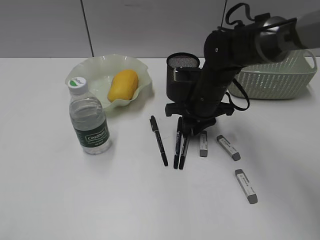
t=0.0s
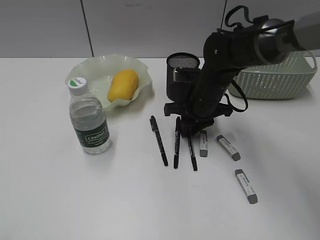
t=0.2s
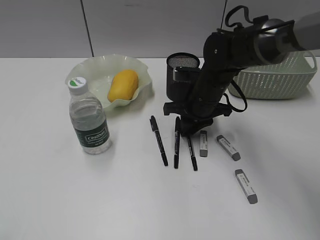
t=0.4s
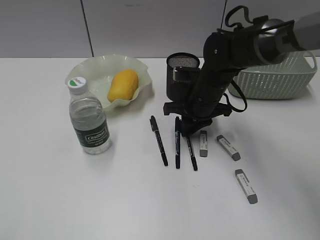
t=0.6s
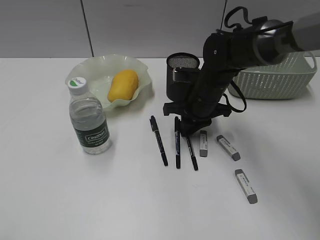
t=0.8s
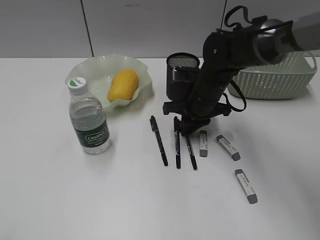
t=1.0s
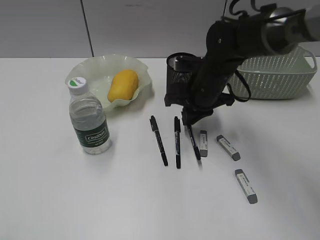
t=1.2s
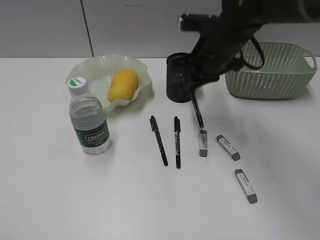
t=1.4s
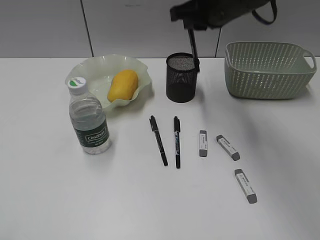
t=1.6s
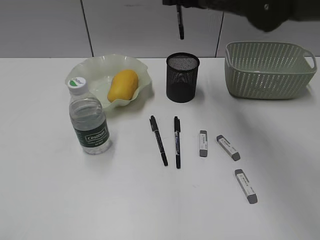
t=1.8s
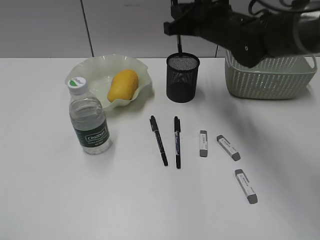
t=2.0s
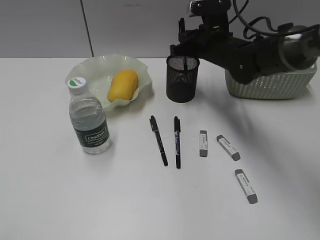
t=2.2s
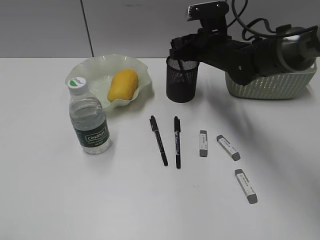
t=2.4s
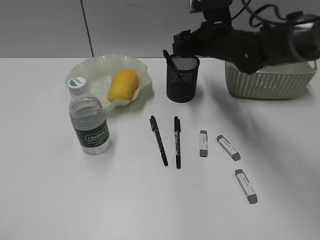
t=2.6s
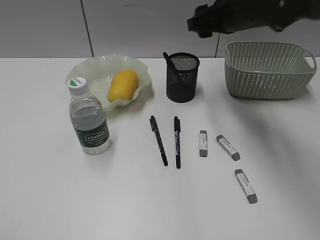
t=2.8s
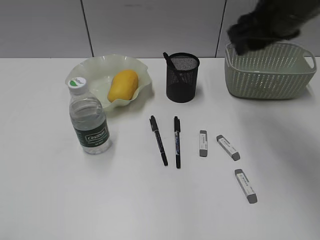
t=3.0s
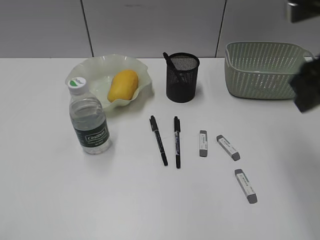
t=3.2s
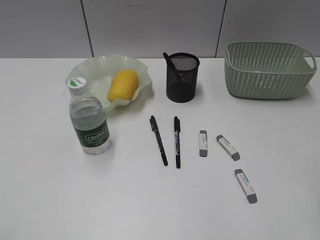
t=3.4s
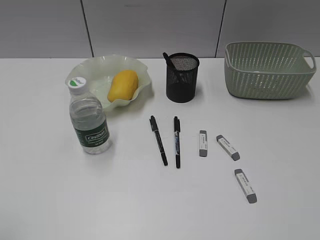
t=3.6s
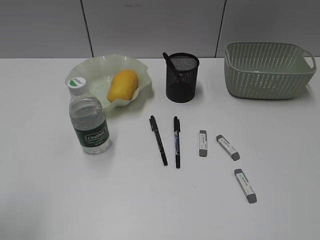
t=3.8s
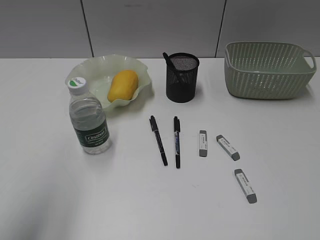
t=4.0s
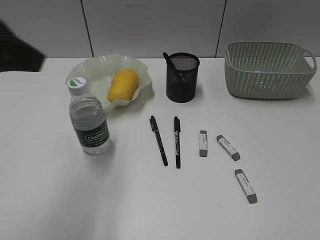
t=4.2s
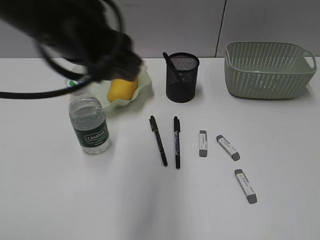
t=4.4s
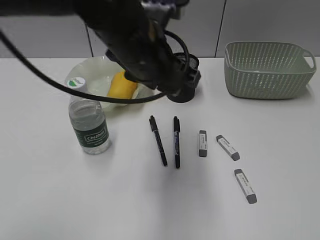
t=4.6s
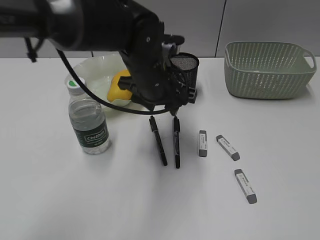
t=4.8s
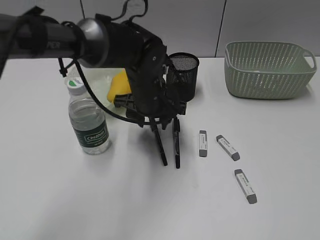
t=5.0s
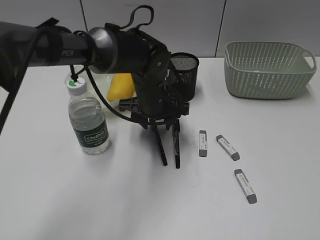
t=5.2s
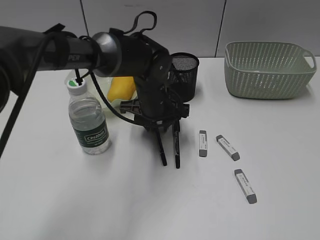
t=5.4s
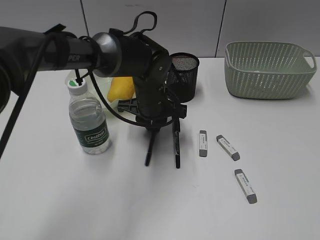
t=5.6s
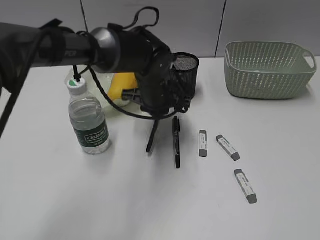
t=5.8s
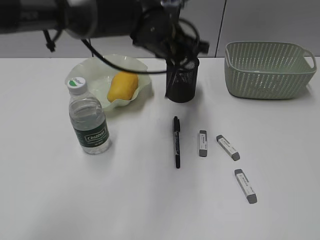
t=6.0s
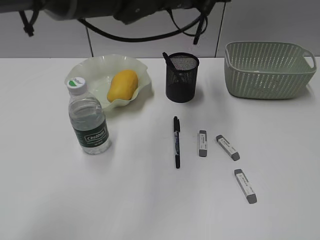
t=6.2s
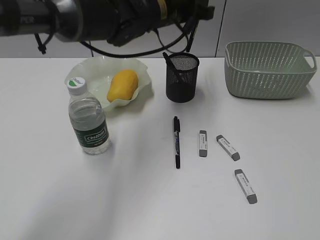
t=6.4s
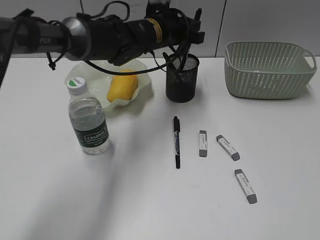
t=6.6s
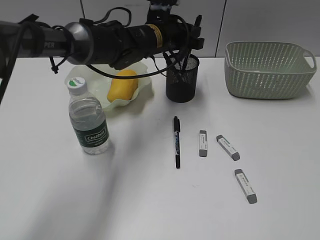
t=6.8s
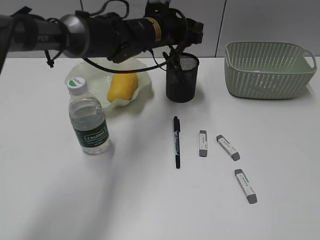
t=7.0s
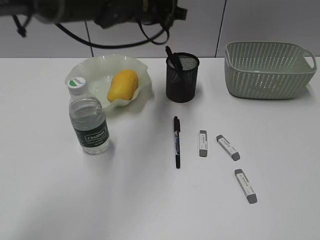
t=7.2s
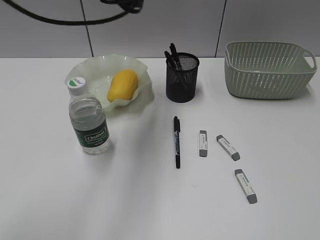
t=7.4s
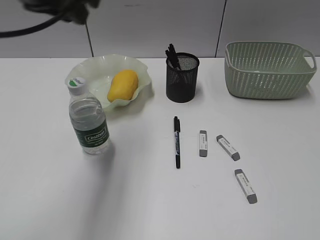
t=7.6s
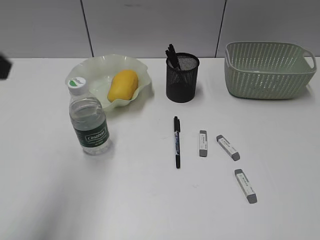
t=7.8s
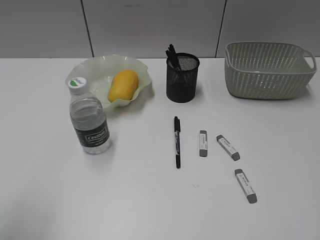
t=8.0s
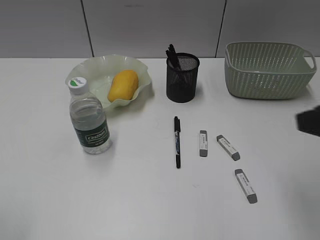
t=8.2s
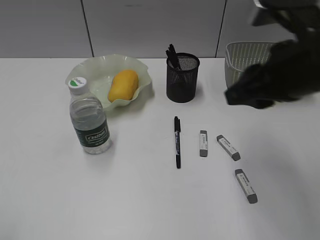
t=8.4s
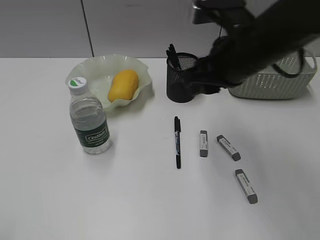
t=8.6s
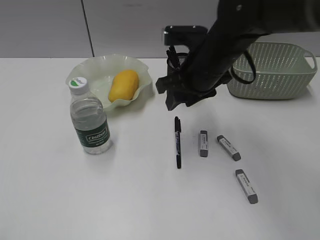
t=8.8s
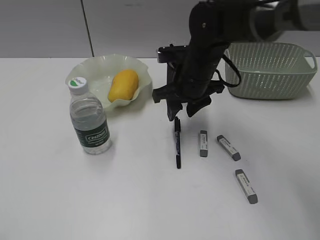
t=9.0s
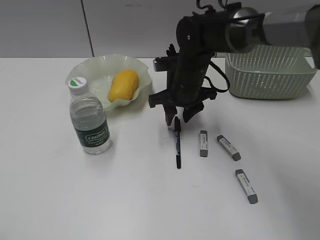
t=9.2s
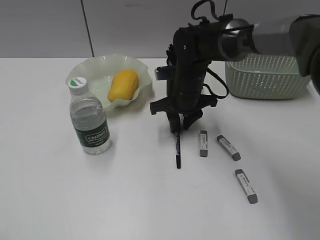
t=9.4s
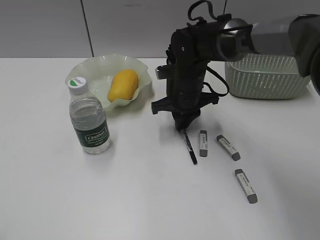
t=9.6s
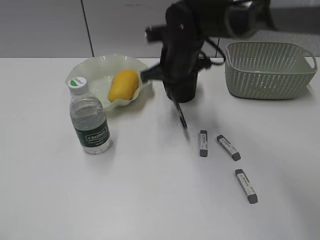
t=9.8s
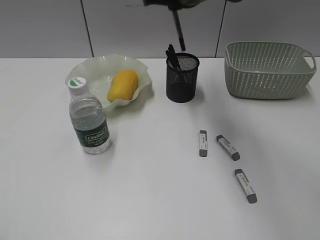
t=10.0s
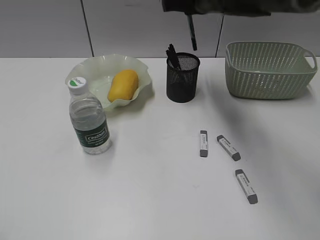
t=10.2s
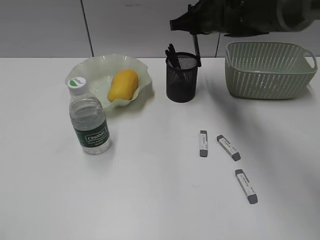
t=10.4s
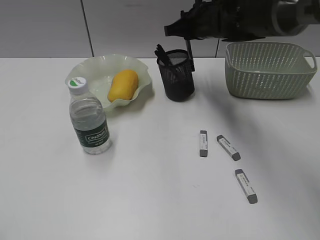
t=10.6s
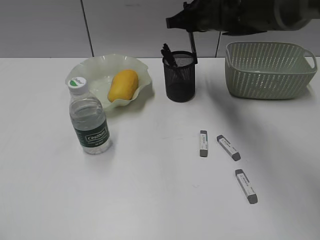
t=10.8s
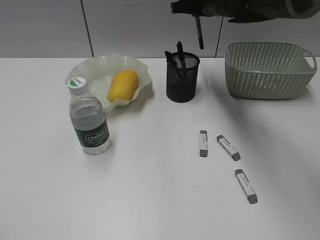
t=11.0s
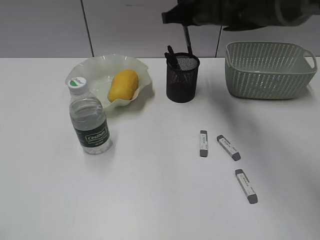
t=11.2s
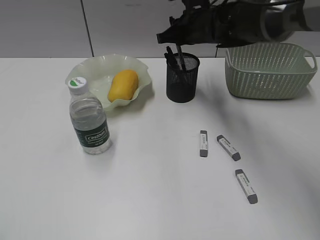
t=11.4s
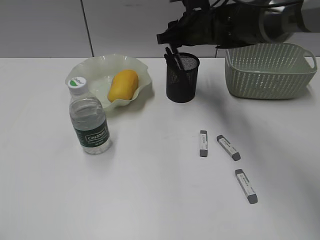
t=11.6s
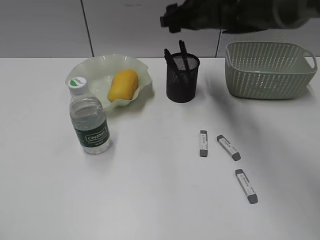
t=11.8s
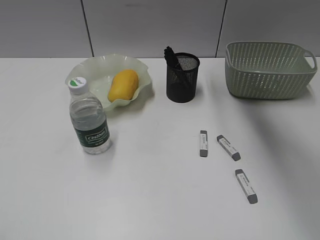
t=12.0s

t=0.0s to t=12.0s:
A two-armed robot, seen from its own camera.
Step, t=1.0s to t=2.4s: Place the black pen in pen holder with right gripper.
Step, t=2.6s to t=5.6s: Grasp the black pen with left gripper.
Step, t=5.8s to t=7.0s: Place the black pen in pen holder with left gripper.
Step, t=7.2s to t=9.6s: Grasp the black pen with right gripper.
Step, t=9.8s to t=11.6s: Place the black pen in pen holder with right gripper.
t=0.0s to t=1.6s: The right gripper travels upward by some 20 cm.
t=1.6s to t=3.0s: The right gripper moves to the right and backward, some 10 cm, travels downward and back again, about 15 cm each way, and opens up.
t=3.0s to t=4.4s: The right gripper shifts approximately 35 cm backward and to the right. Meanwhile the left gripper goes roughly 35 cm to the right and forward.
t=4.4s to t=6.0s: The left gripper shifts some 20 cm forward, to the right and downward, and closes its fingers.
t=6.0s to t=7.6s: The left gripper moves to the left, upward and backward, about 25 cm, and opens, then closes once more.
t=7.6s to t=9.0s: The right gripper moves forward and to the left, some 40 cm, and opens. The left gripper is displaced backward and to the left by some 35 cm.
t=9.0s to t=10.4s: The right gripper goes up and down, approximately 20 cm each way, reversing 2 times, and closes up.
t=10.4s to t=12.0s: The right gripper is displaced upward and backward by some 15 cm, and opens.

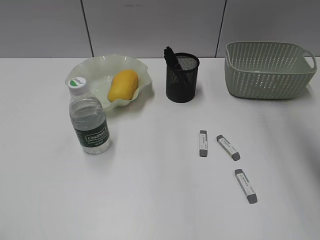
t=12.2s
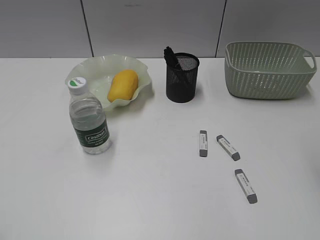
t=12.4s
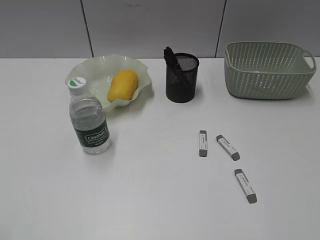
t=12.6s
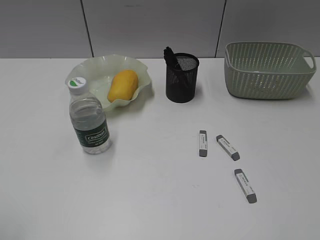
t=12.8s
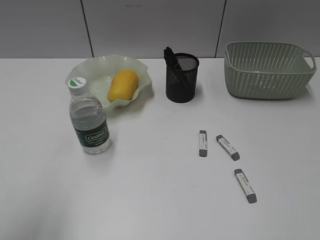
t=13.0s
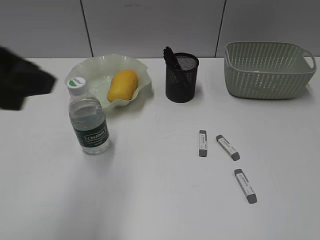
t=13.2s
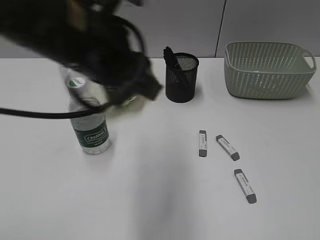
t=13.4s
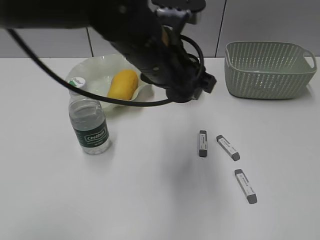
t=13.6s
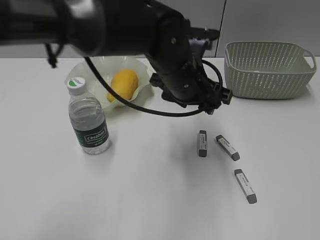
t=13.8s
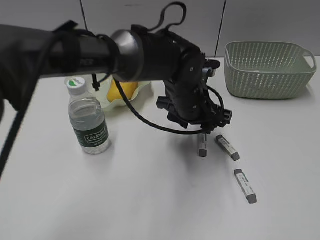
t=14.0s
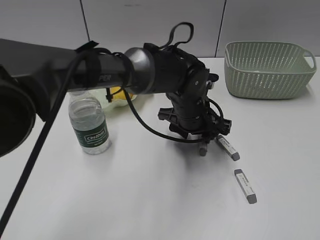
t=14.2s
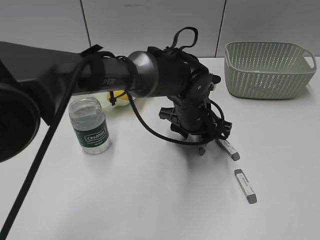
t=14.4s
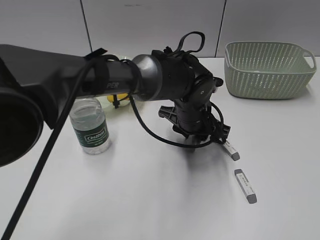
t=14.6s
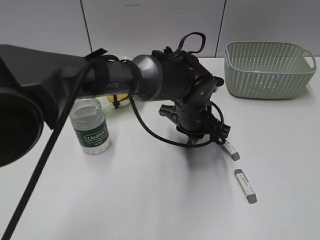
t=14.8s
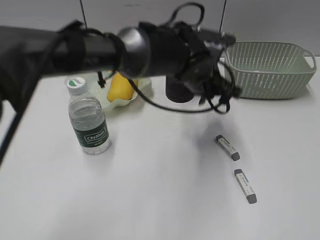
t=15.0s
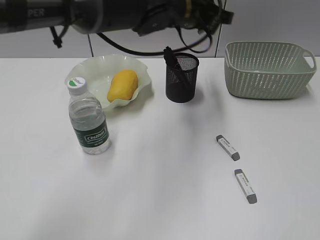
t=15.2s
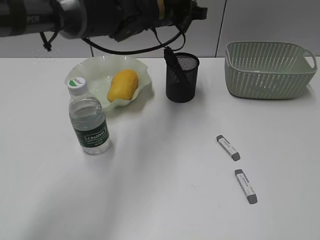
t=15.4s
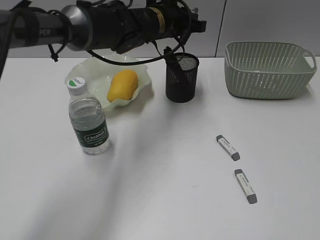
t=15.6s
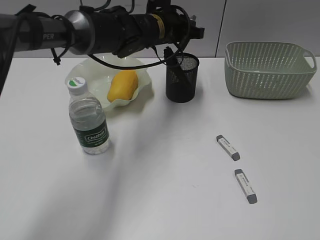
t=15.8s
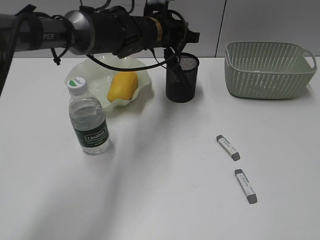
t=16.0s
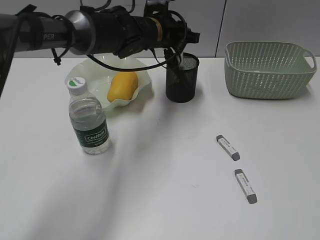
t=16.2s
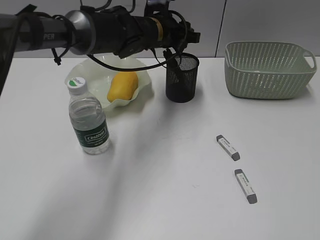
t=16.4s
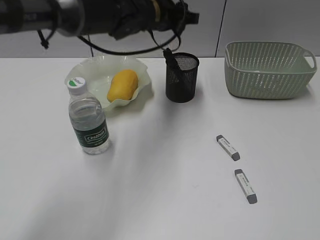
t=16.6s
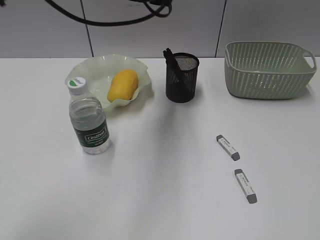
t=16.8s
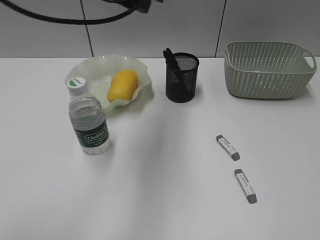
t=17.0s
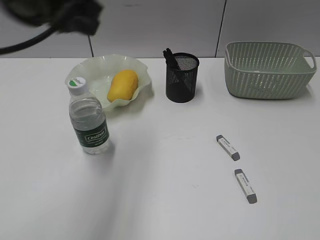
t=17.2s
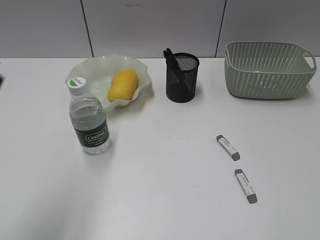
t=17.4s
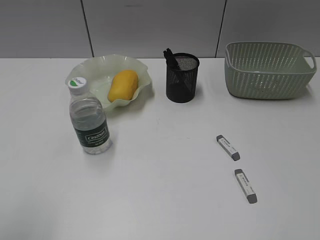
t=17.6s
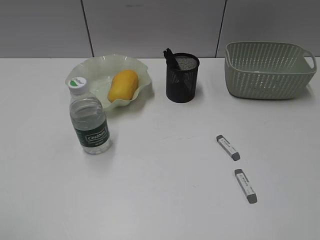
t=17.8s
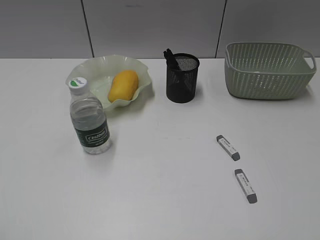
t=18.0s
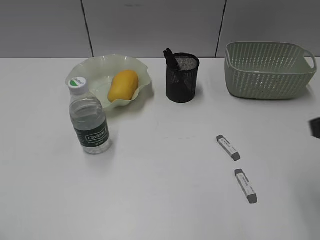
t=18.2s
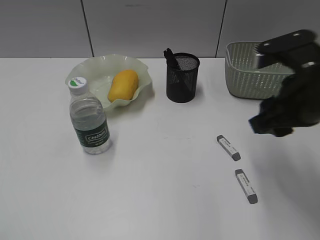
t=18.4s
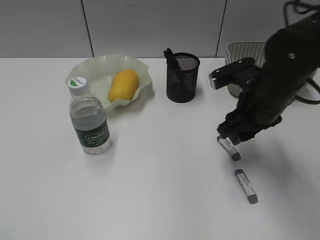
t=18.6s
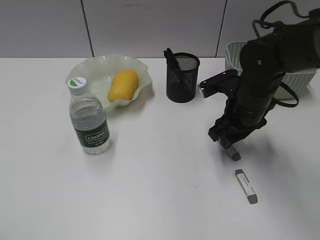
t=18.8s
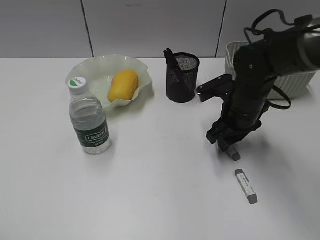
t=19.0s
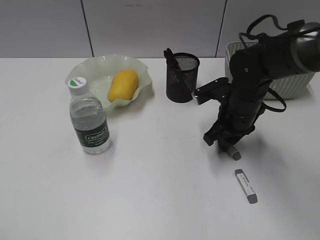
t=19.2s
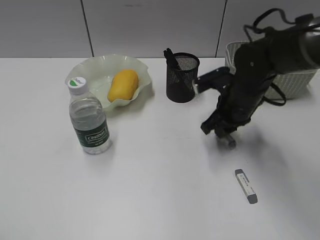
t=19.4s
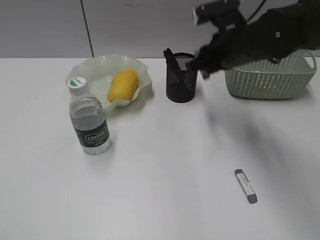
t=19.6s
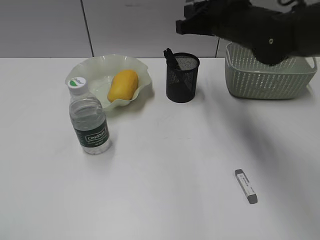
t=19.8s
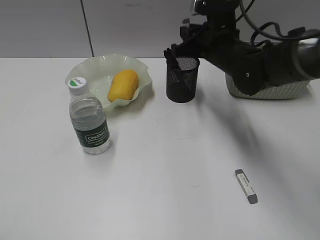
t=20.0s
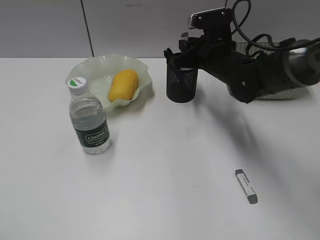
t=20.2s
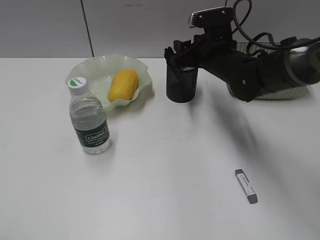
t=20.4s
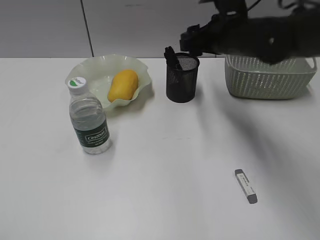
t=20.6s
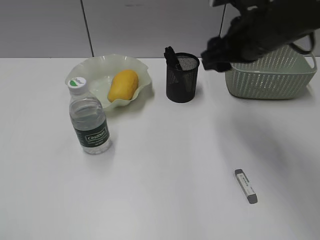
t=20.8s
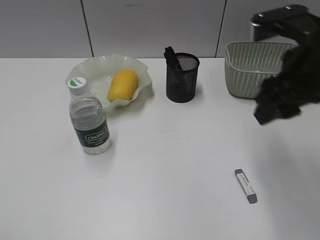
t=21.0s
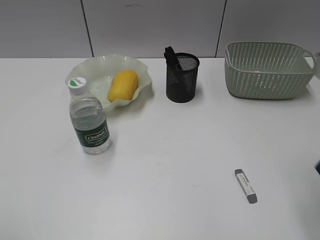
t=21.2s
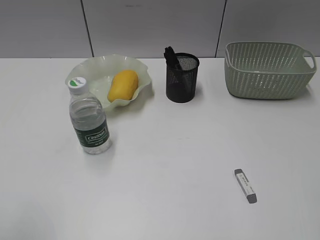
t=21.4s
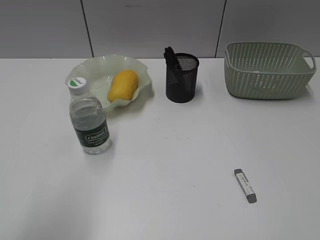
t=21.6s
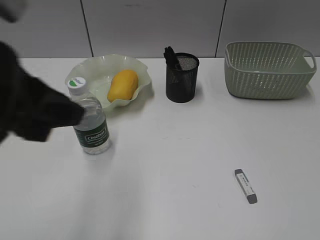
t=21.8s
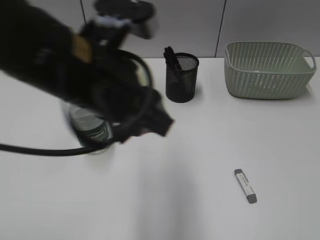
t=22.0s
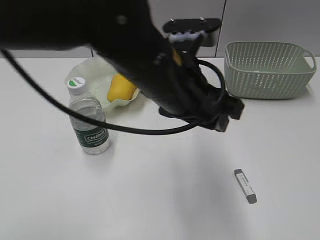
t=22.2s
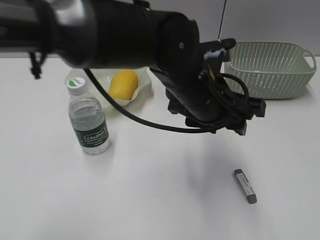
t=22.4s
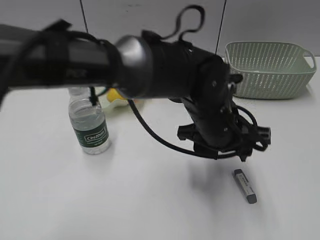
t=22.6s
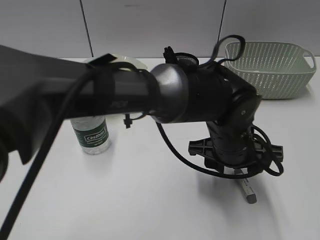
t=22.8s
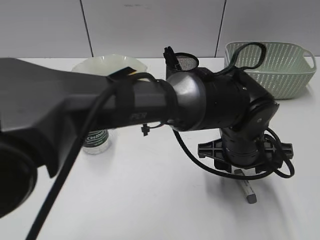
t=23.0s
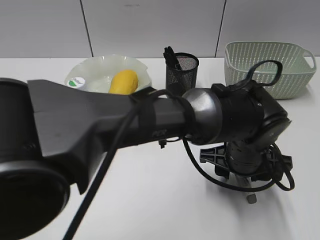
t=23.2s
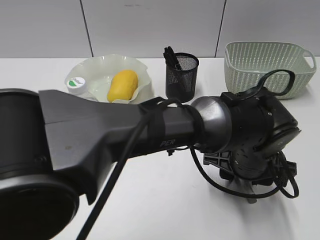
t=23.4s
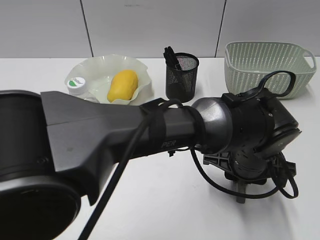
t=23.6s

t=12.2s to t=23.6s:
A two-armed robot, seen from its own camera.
Step, t=12.2s to t=14.8s: Grasp the eraser with left gripper.
Step, t=15.0s to t=16.4s: Place the eraser in pen holder with left gripper.
Step, t=16.6s to t=19.2s: Grasp the eraser with right gripper.
Step, t=19.4s to t=20.6s: Place the eraser in pen holder with right gripper.
t=12.2s to t=13.6s: The right gripper travels backward and to the right by some 30 cm. Meanwhile the left gripper heads to the right and forward, covering about 40 cm, and opens.
t=13.6s to t=15.0s: The left gripper travels forward, to the right and downward by roughly 10 cm, and closes up.
t=15.0s to t=16.4s: The left gripper goes approximately 10 cm forward and to the left, and opens.
t=16.4s to t=17.8s: The left gripper travels backward and to the left by approximately 50 cm.
t=17.8s to t=19.4s: The right gripper moves forward, to the left and downward, roughly 40 cm, and closes up.
t=19.4s to t=20.8s: The right gripper moves up and down over about 10 cm, changing direction 2 times, and opens.
t=20.8s to t=22.2s: The left gripper heads to the right and forward, covering some 40 cm, while the right gripper moves backward and to the right, approximately 35 cm.
t=22.2s to t=23.6s: The left gripper heads downward and to the right, covering about 20 cm, and closes.
